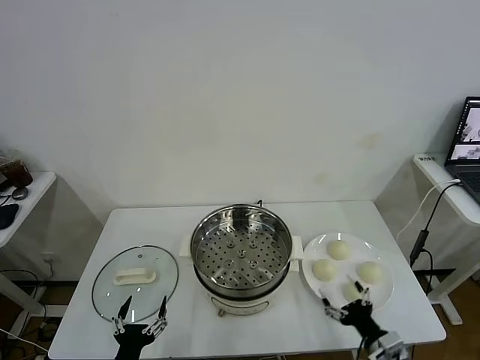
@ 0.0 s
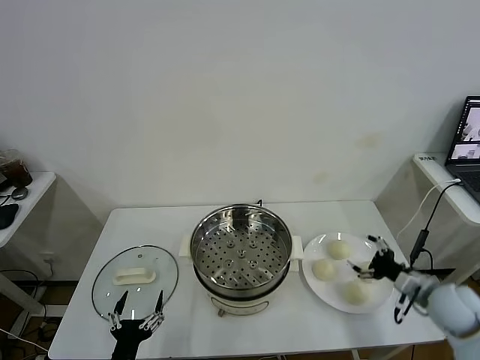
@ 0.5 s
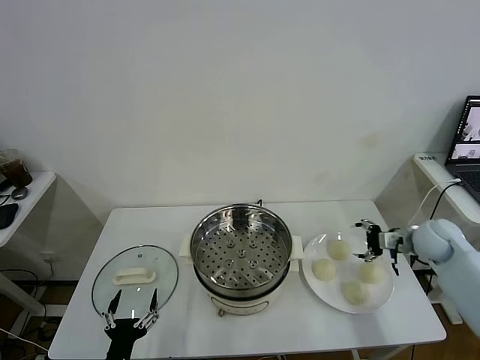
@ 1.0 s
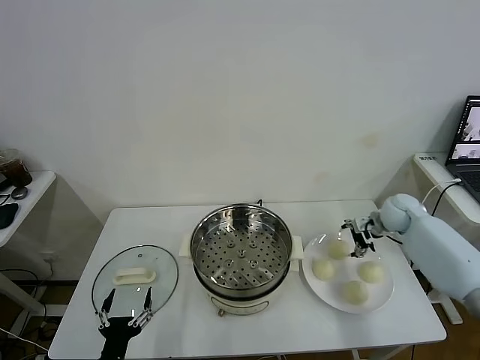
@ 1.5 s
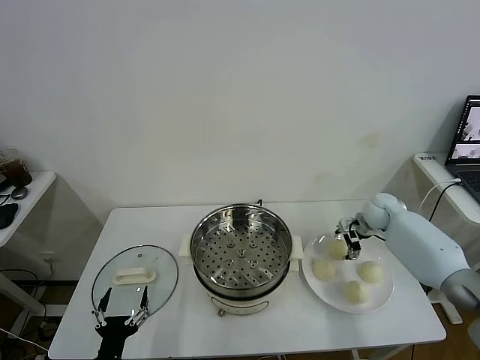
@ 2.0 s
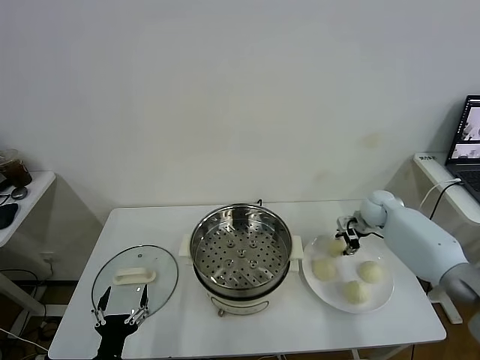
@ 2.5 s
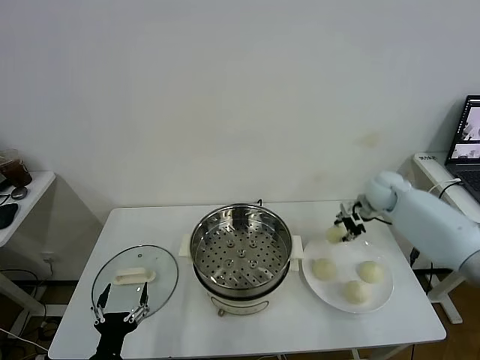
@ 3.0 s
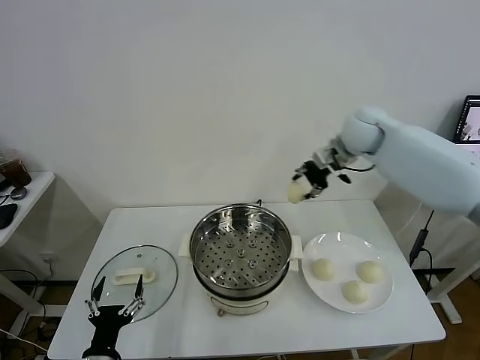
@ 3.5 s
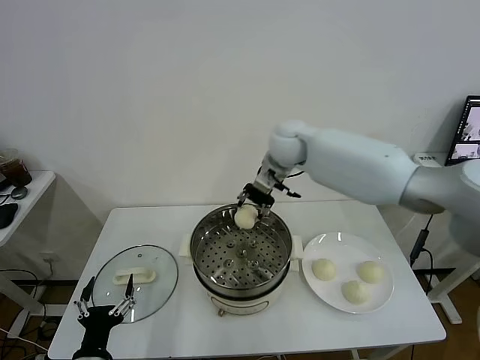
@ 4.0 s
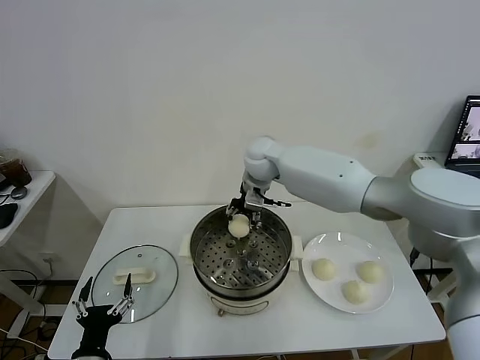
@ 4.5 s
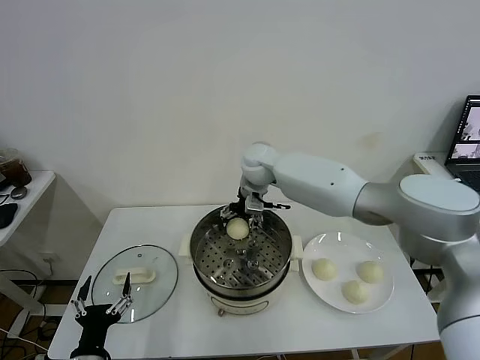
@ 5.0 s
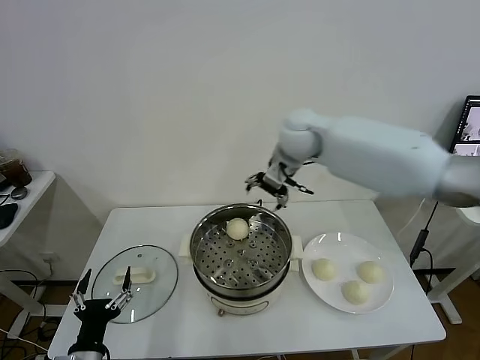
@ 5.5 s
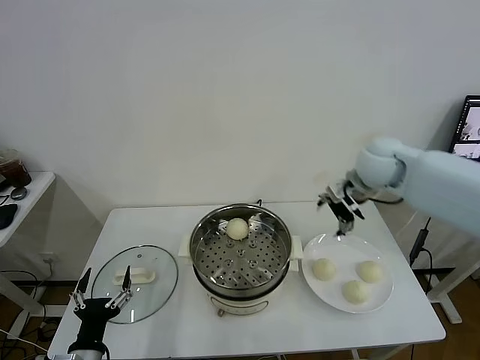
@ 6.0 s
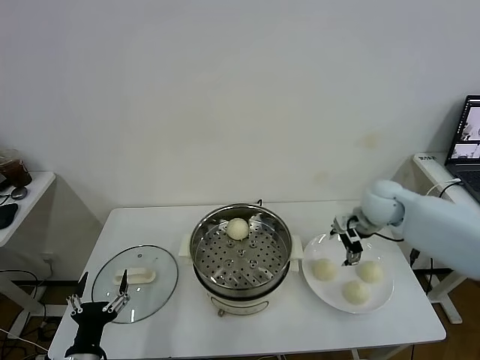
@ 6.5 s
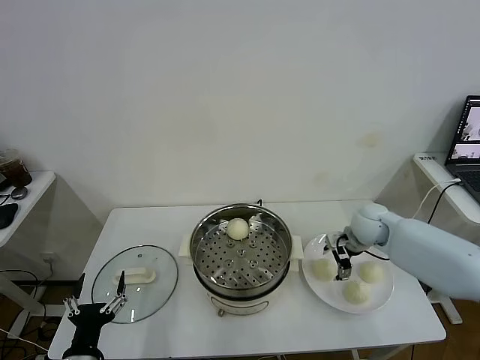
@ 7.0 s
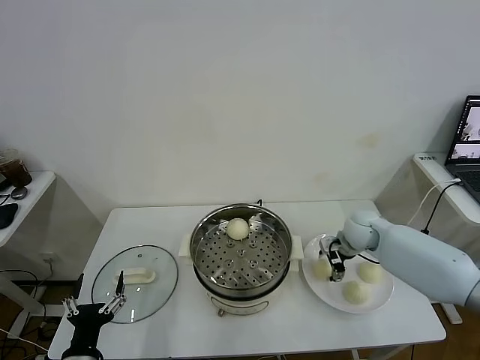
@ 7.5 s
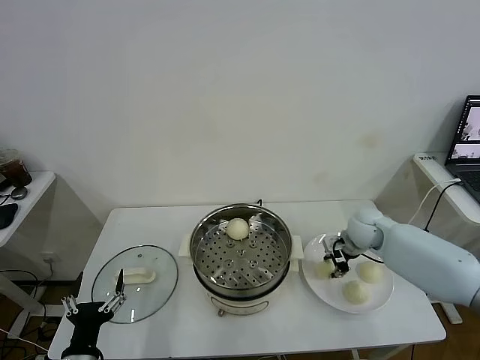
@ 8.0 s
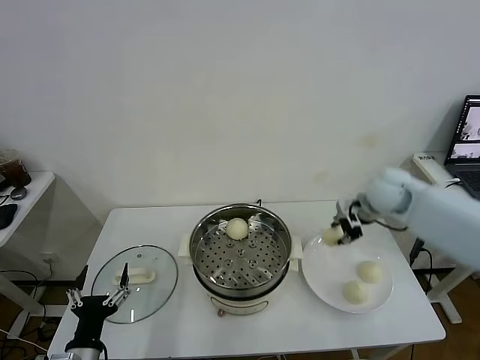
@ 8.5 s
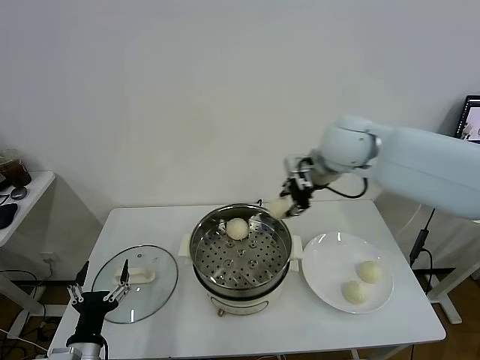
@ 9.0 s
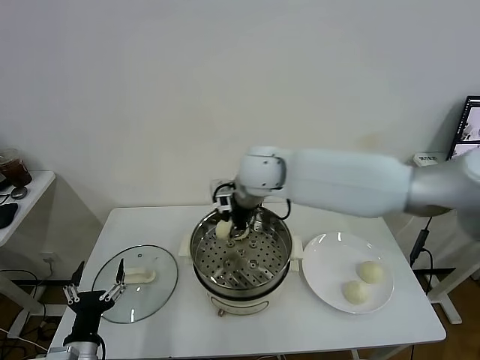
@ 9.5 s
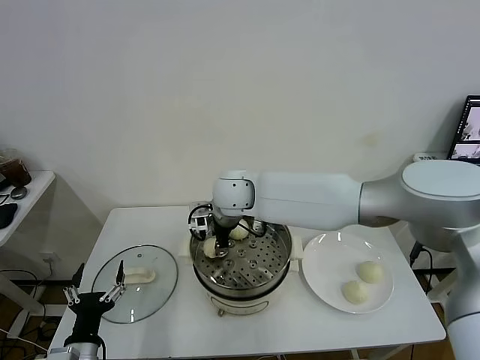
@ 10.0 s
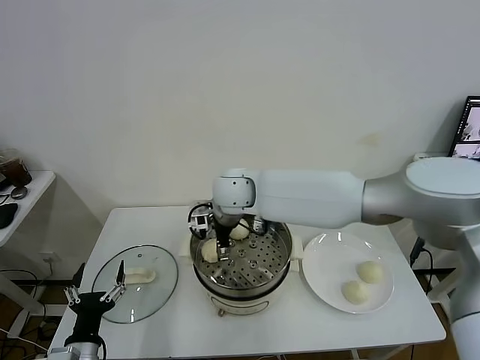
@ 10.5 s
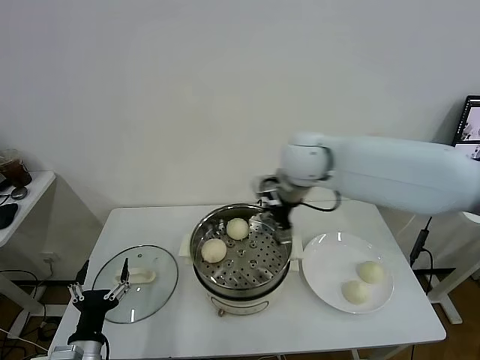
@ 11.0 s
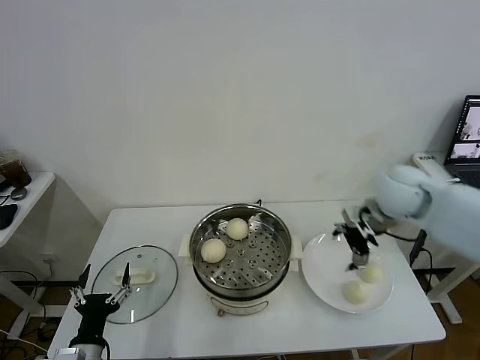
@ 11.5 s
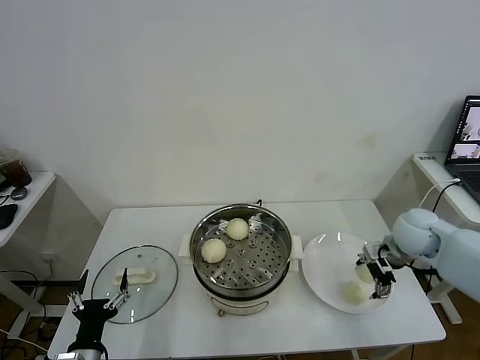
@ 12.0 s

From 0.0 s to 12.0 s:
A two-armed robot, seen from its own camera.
Task of the whole recording: take steamed baozi put them in steamer.
Step, from 0.0 s to 2.5 s: Grasp the baozi in the plate with right gripper.
Step, from 3.0 s to 5.0 s: Place the baozi on the steamer with right gripper.
Step, from 5.5 s to 8.0 s: Grasp the baozi in the plate with right gripper.
Step, from 8.5 s to 10.5 s: Place the baozi on the steamer with right gripper.
From 2.0 s to 4.0 s: The right gripper heads to the left and upward, covering roughly 35 cm, and closes its fingers.
From 4.0 s to 6.0 s: The right gripper is displaced to the right by some 20 cm, and opens its fingers.
From 6.0 s to 8.0 s: The right gripper travels downward by about 20 cm, and closes its fingers.
From 8.0 s to 10.0 s: The right gripper shifts about 35 cm to the left and upward.
From 10.0 s to 12.0 s: The right gripper moves to the right, approximately 40 cm, and opens its fingers.

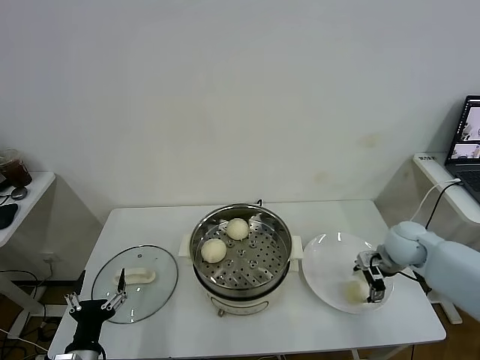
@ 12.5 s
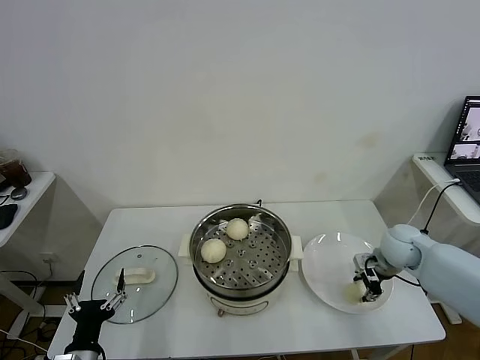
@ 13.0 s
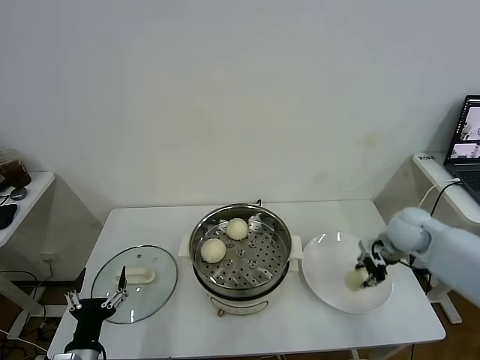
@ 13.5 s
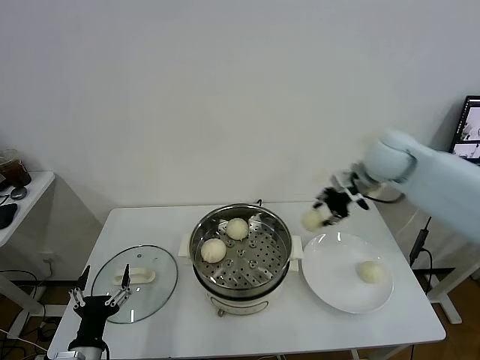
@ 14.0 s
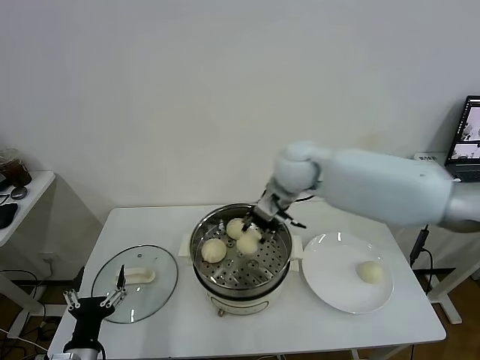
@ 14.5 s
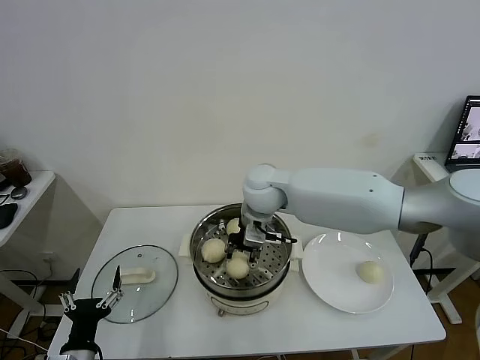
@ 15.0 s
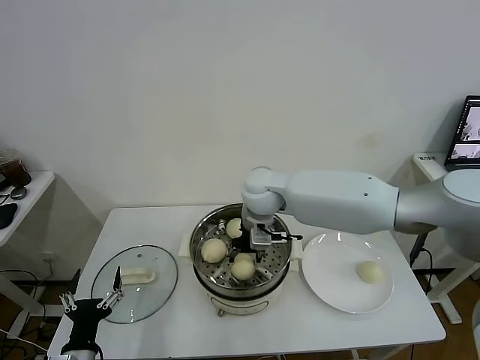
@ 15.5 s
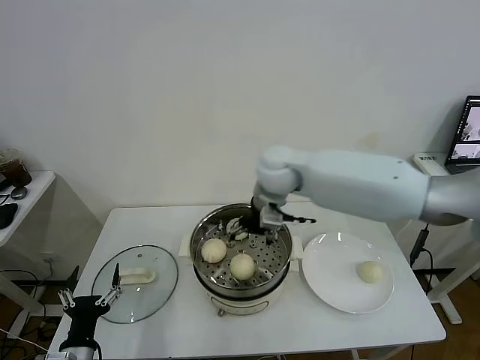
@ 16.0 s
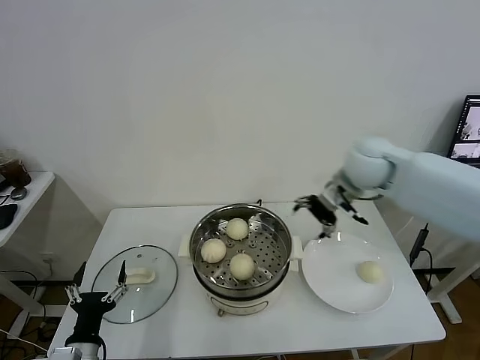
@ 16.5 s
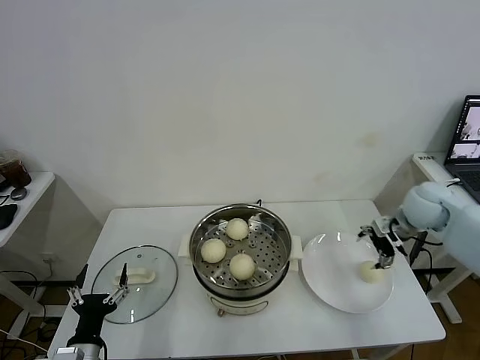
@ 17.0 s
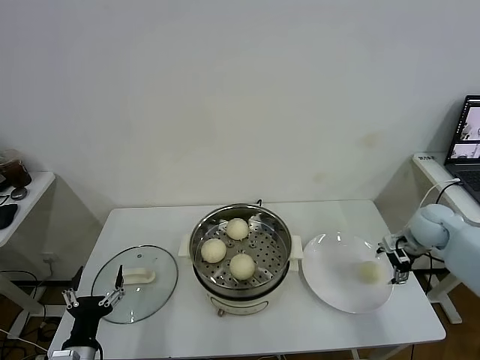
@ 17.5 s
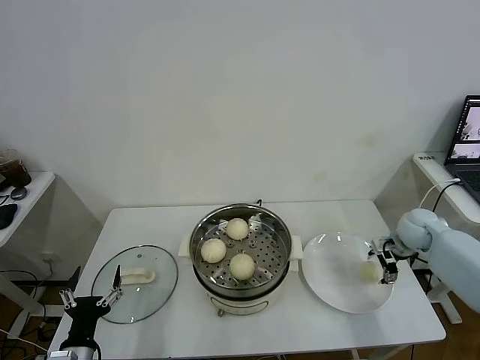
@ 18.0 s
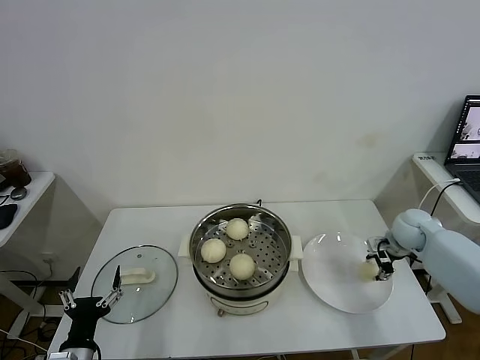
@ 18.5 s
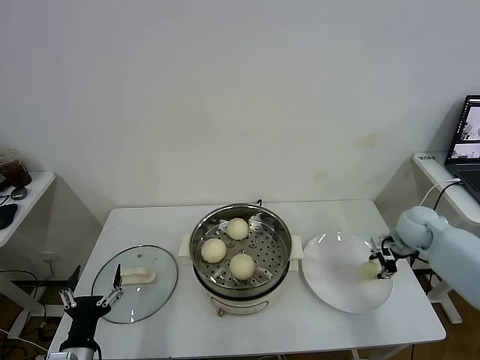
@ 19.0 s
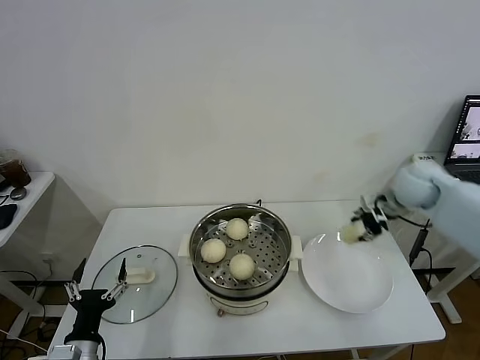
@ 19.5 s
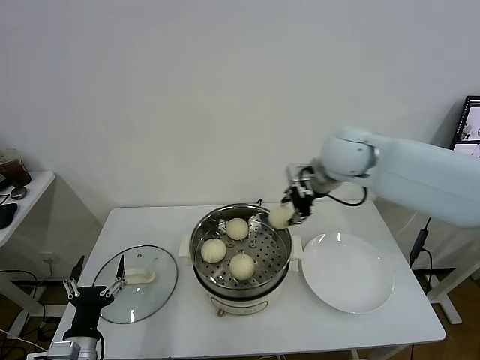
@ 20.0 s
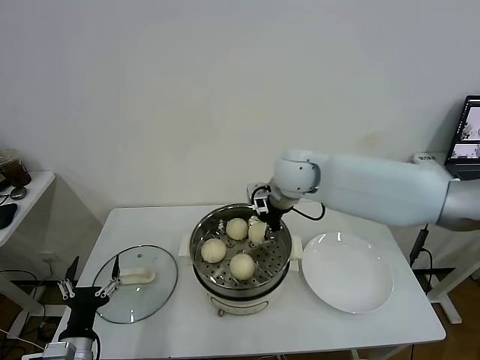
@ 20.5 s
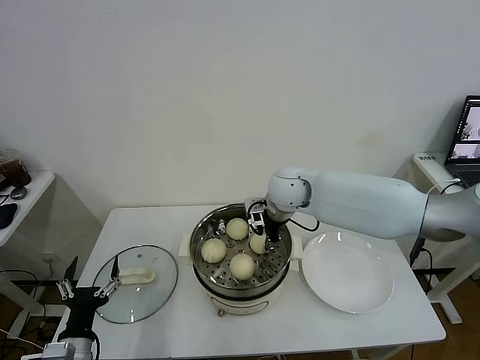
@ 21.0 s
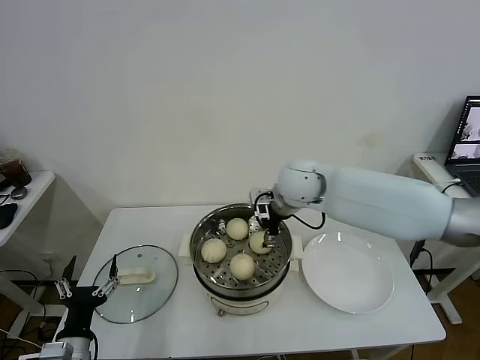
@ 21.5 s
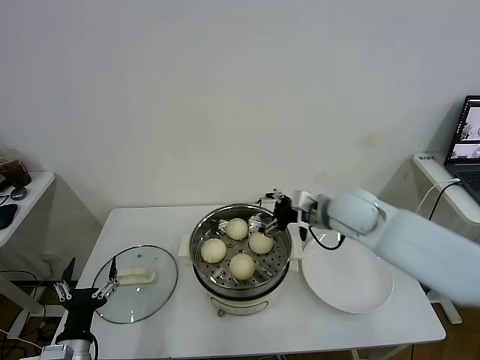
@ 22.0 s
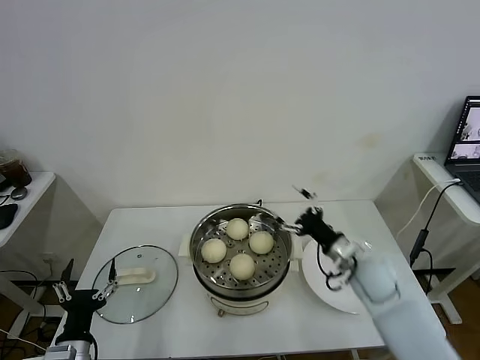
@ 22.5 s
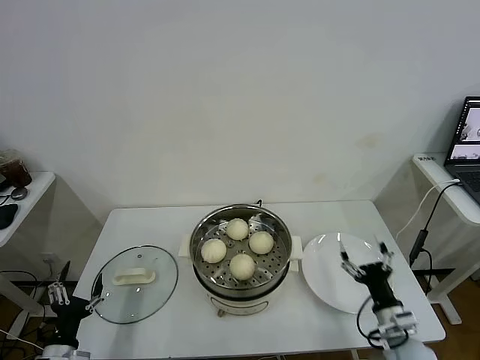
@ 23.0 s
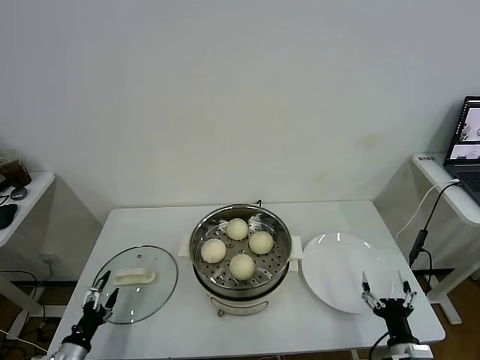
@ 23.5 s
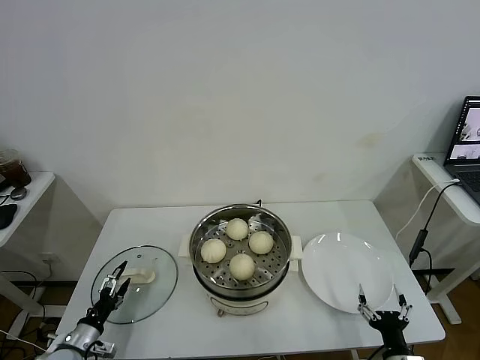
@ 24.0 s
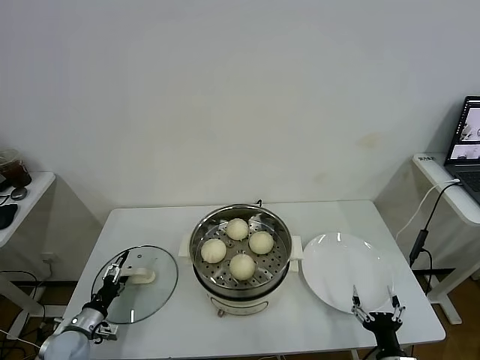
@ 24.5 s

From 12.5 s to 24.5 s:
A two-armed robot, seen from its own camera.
Task of the whole recording: take steamed baozi put them in steamer.
Step, from 13.5 s to 15.5 s: Place the baozi on the steamer with right gripper.
Step, from 16.0 s to 18.5 s: Grasp the baozi in the plate with right gripper.
Step, from 19.0 s to 21.5 s: Place the baozi on the steamer with right gripper.
From 12.5 s to 14.5 s: The right gripper shifts about 35 cm to the left and upward, and closes.
From 14.5 s to 16.5 s: The right gripper heads to the right, covering some 15 cm, and opens up.
From 16.5 s to 18.5 s: The right gripper moves downward and to the right, about 25 cm, and closes up.
From 18.5 s to 20.5 s: The right gripper shifts approximately 35 cm to the left and upward.
From 20.5 s to 22.5 s: The right gripper is displaced downward, to the right and backward by approximately 25 cm, and opens up.
From 22.5 s to 24.5 s: The left gripper moves downward, forward and to the left, some 20 cm. Meanwhile the right gripper heads backward and downward, covering approximately 30 cm.

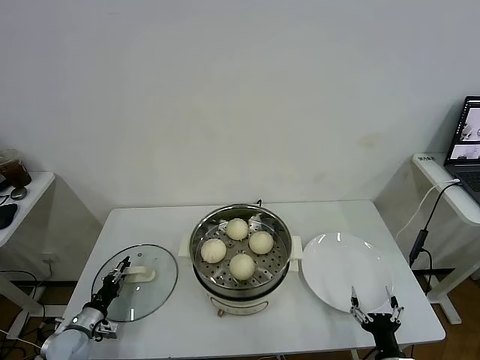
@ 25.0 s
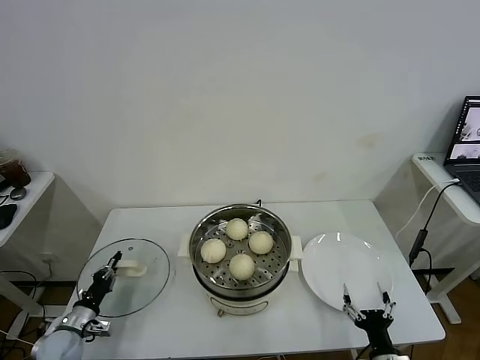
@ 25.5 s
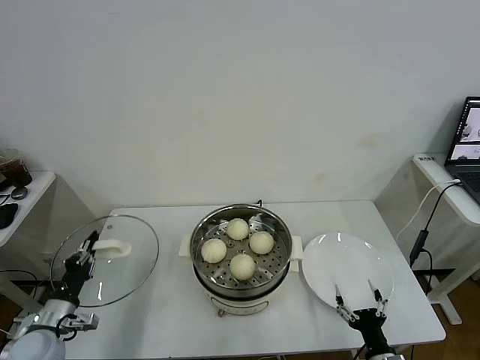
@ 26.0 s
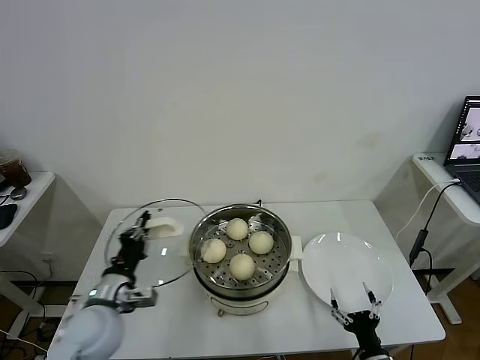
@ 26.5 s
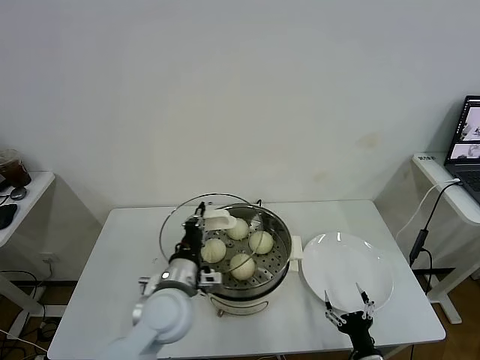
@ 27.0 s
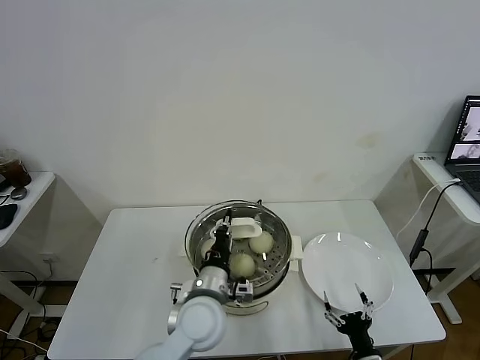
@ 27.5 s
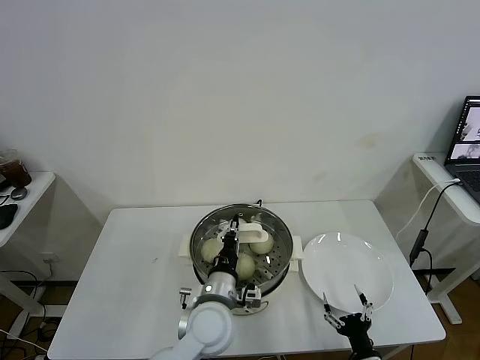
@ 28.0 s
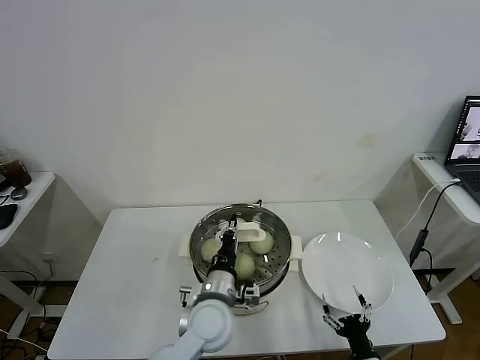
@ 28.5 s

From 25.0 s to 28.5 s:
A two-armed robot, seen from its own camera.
Task of the whole recording: take steamed baozi put them in steamer.
From 25.0 s to 27.0 s: The left gripper is displaced to the right and upward by approximately 35 cm, and closes up.
From 27.0 s to 28.5 s: The left gripper shifts about 10 cm to the right.
